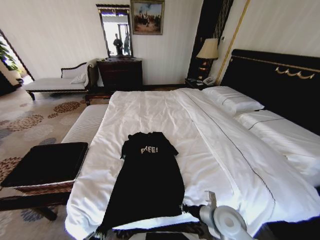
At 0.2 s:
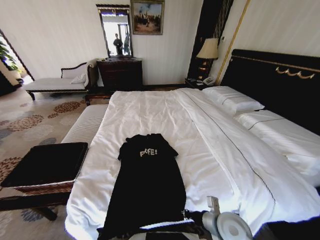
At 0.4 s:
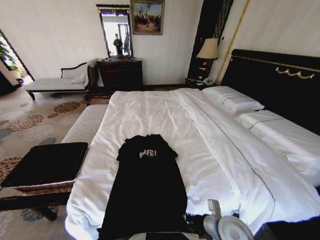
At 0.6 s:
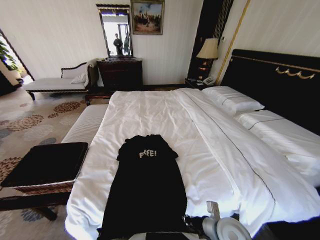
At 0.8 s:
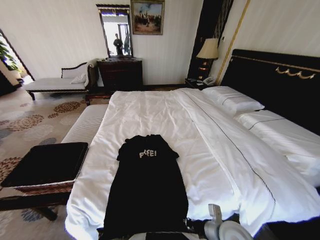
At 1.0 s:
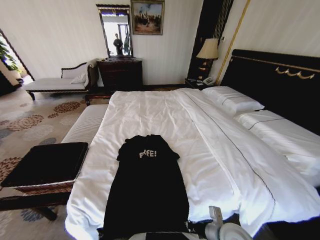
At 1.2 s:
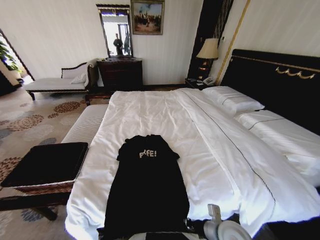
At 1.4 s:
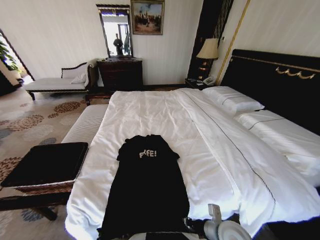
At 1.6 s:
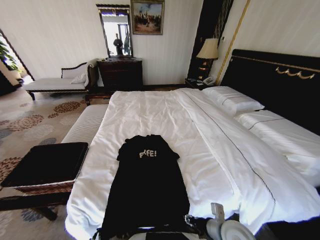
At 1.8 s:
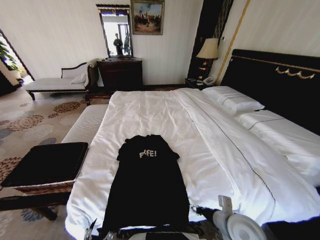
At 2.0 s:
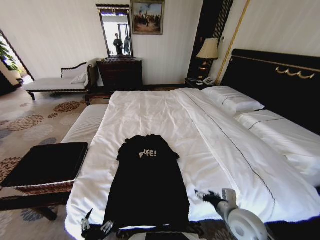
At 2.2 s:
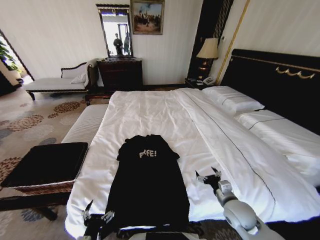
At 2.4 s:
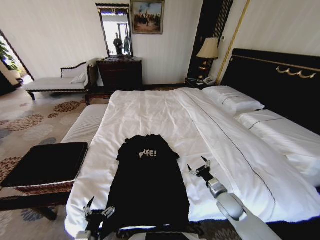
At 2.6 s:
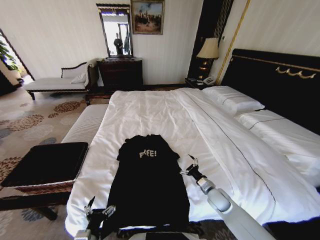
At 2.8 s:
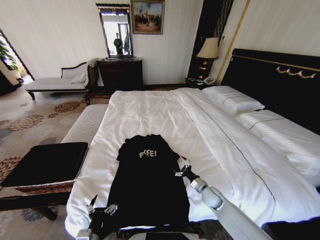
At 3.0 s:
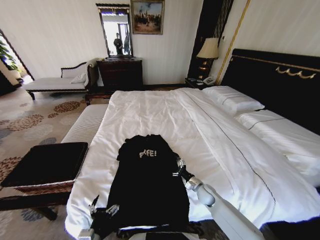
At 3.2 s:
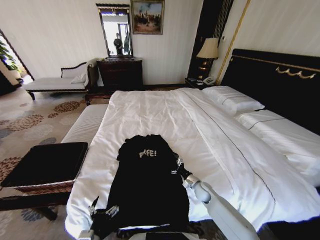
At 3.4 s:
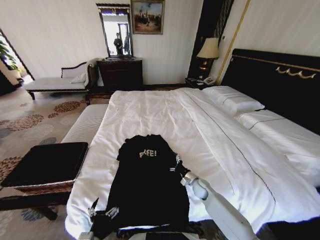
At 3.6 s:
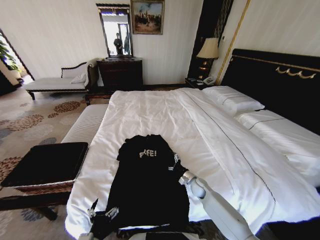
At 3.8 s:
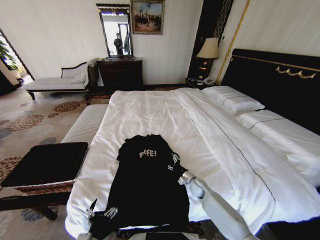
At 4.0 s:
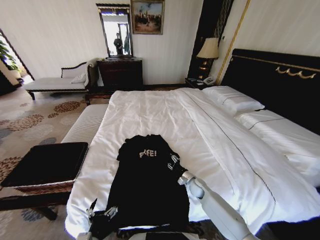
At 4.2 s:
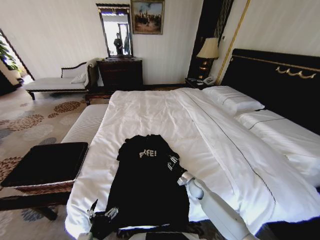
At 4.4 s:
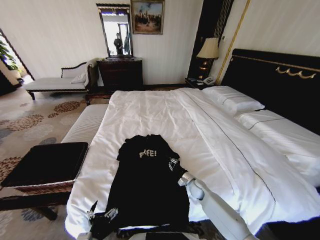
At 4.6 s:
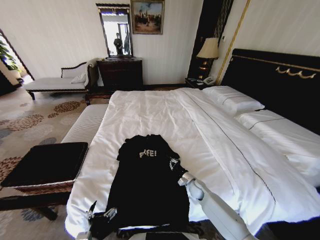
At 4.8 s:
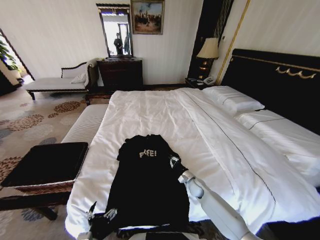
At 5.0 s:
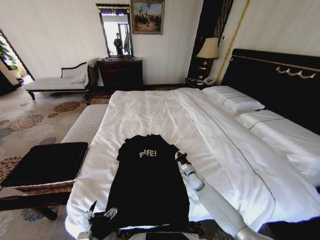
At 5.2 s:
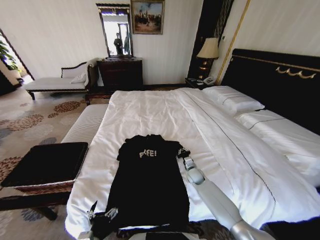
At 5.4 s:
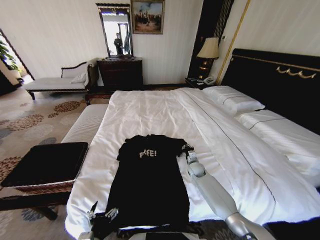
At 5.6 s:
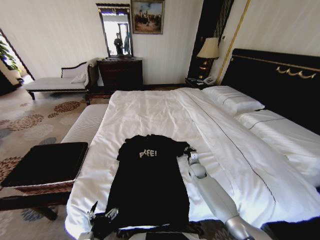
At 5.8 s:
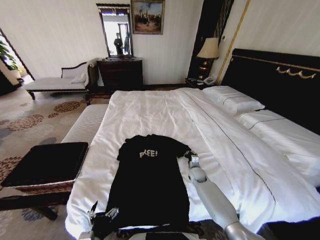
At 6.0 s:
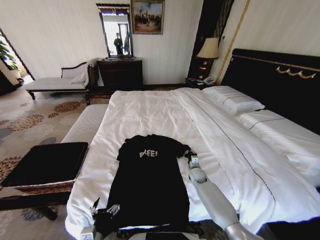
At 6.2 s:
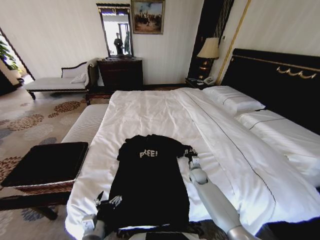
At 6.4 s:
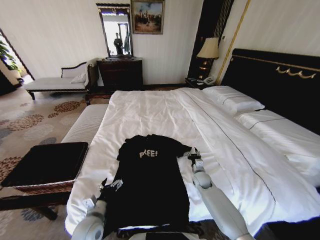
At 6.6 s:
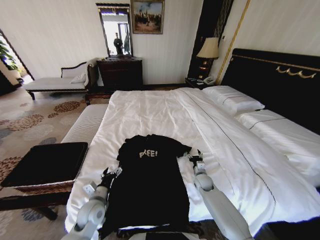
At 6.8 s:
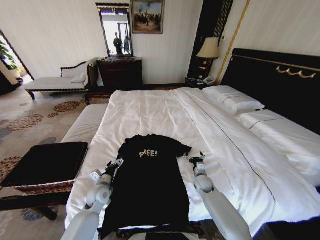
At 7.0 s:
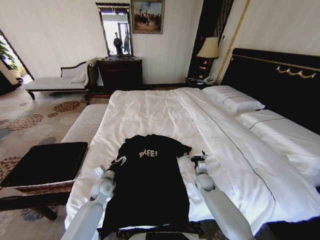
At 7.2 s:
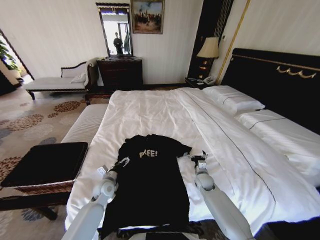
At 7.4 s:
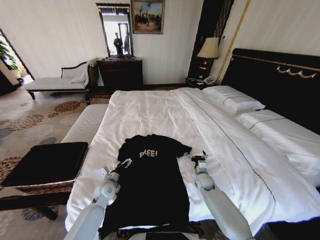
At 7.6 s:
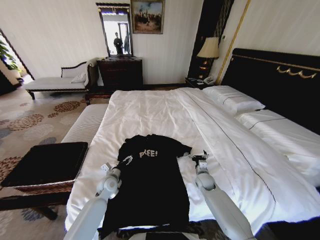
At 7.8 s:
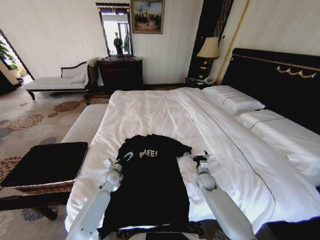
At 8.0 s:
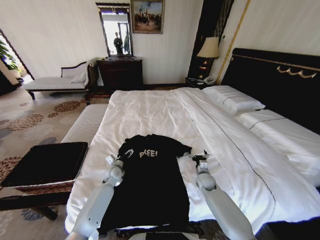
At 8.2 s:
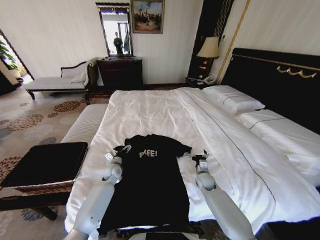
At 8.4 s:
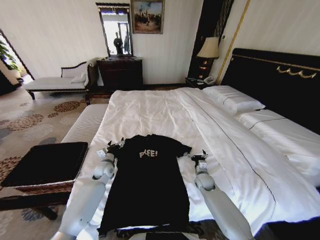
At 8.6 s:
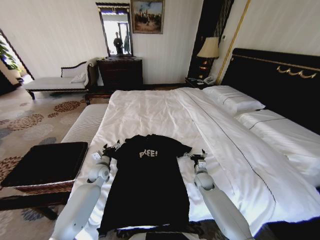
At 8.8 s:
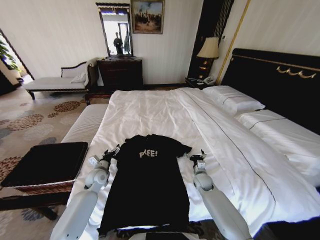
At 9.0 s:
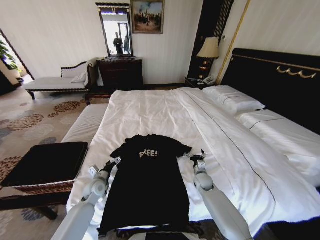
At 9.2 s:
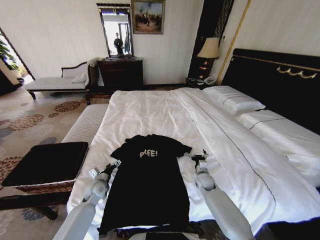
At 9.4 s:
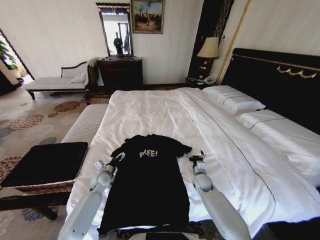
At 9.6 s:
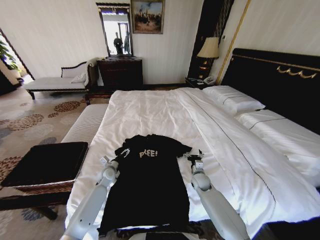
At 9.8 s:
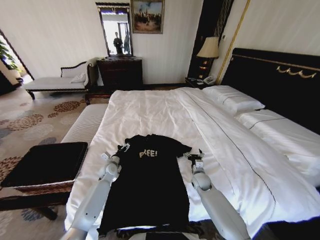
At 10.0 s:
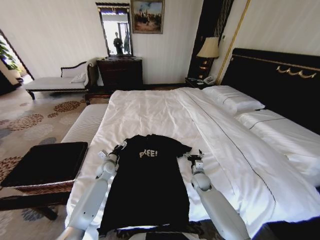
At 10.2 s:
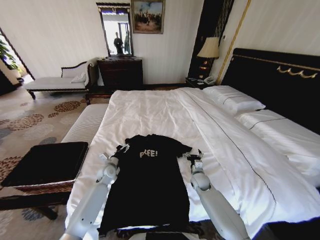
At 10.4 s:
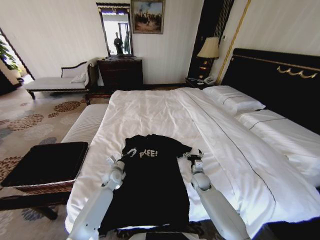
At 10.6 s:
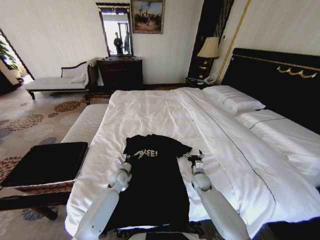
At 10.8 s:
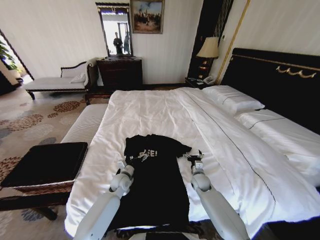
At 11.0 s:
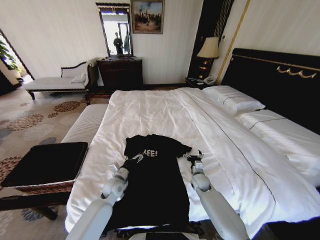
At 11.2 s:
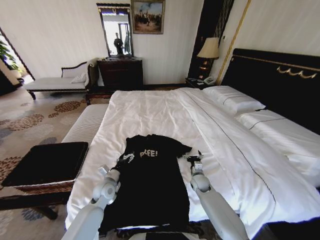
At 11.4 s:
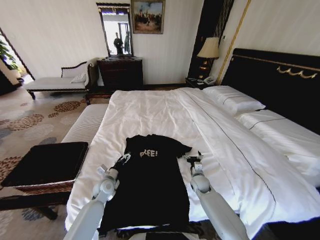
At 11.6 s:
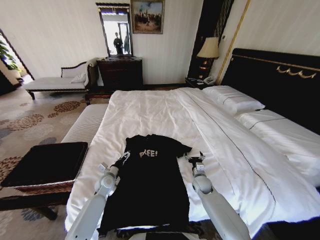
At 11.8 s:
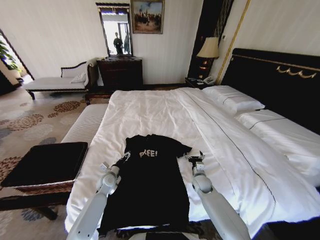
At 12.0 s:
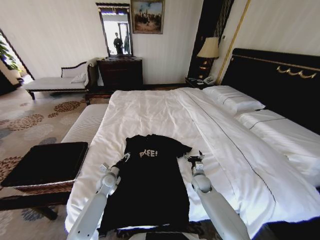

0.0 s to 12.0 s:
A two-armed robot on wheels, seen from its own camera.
Task of the whole recording: Fold the clothes on the bed and place them into the basket.
0.0 to 1.6 s: The left gripper opens up.
1.6 to 3.0 s: The right gripper moves forward and downward, about 25 cm, and opens its fingers. The left gripper goes about 10 cm forward, and opens up.
3.0 to 4.4 s: The right gripper closes up.
4.4 to 6.0 s: The right gripper shifts about 5 cm forward.
6.0 to 7.6 s: The right gripper opens. The left gripper goes approximately 25 cm forward.
7.6 to 9.0 s: The left gripper heads to the left, covering approximately 5 cm, and moves approximately 10 cm forward and comes back.
9.0 to 10.4 s: The left gripper goes some 10 cm to the right and forward.

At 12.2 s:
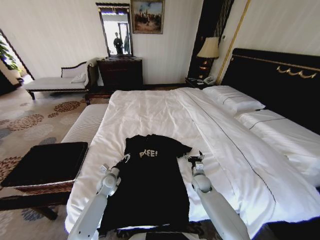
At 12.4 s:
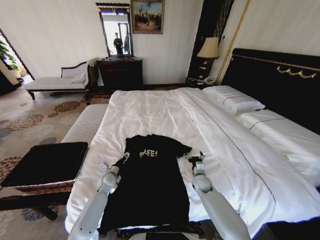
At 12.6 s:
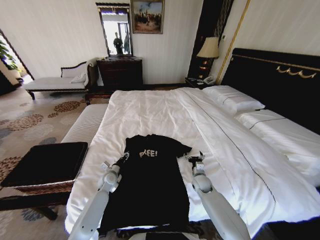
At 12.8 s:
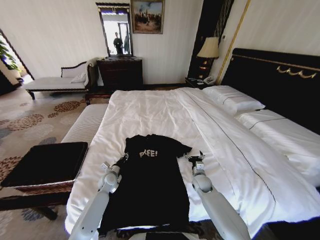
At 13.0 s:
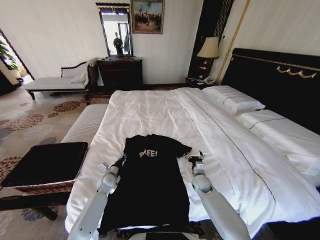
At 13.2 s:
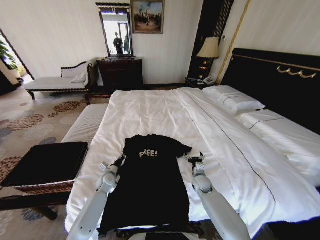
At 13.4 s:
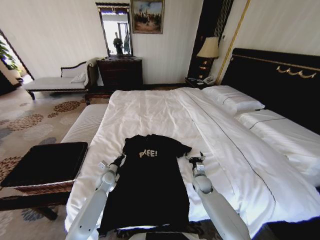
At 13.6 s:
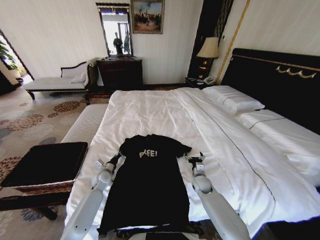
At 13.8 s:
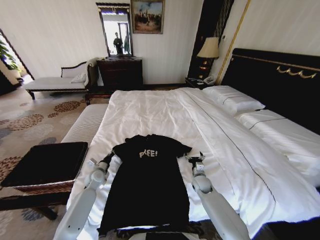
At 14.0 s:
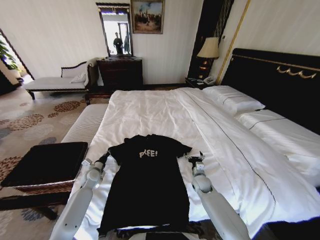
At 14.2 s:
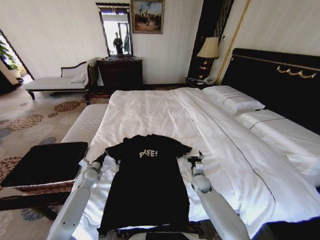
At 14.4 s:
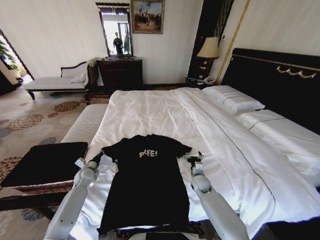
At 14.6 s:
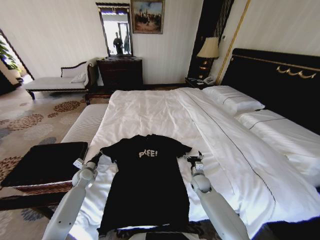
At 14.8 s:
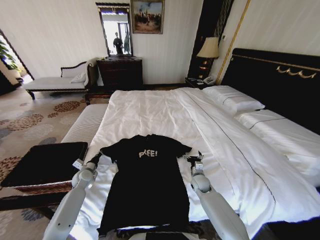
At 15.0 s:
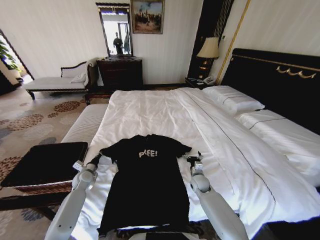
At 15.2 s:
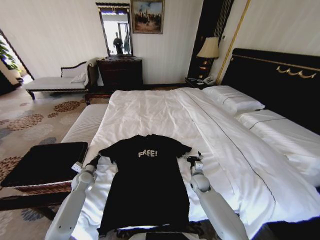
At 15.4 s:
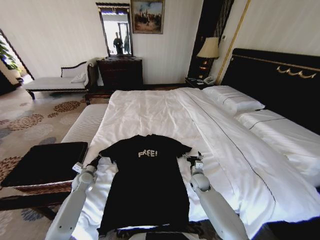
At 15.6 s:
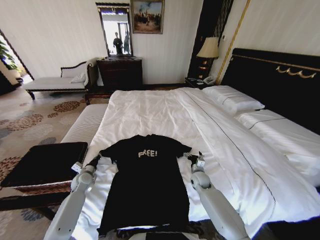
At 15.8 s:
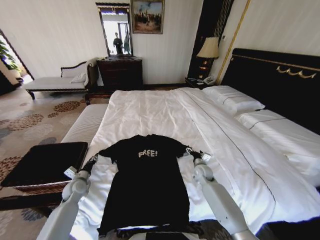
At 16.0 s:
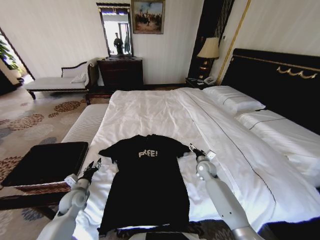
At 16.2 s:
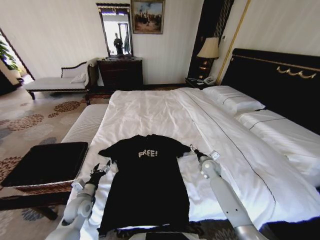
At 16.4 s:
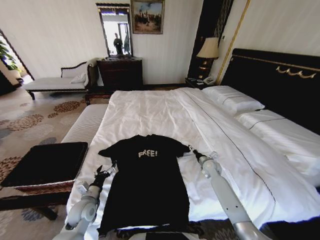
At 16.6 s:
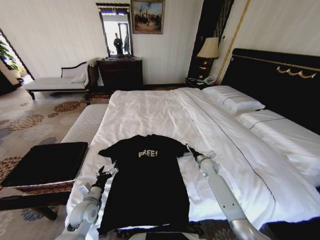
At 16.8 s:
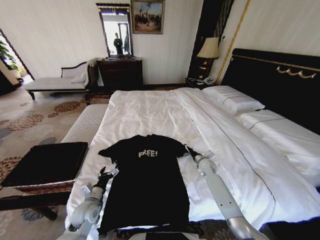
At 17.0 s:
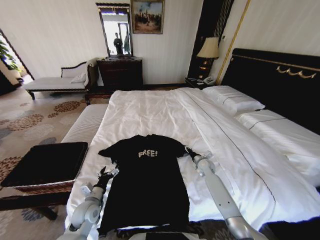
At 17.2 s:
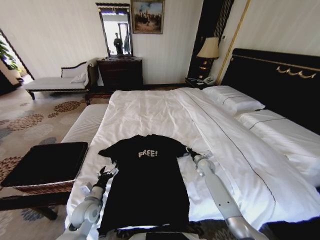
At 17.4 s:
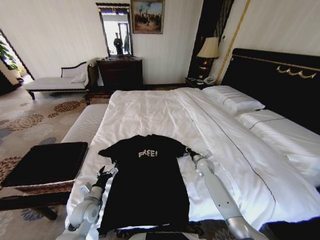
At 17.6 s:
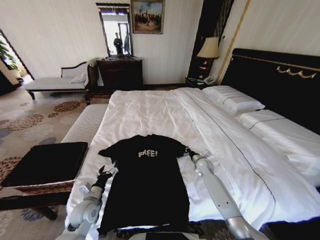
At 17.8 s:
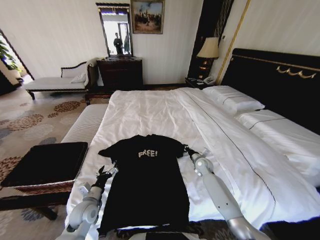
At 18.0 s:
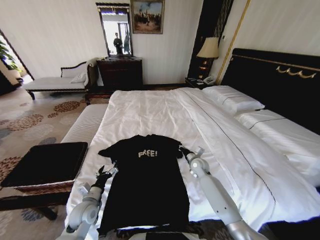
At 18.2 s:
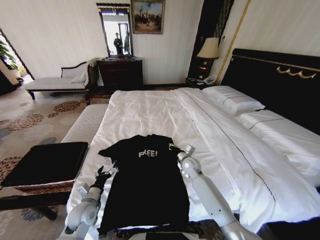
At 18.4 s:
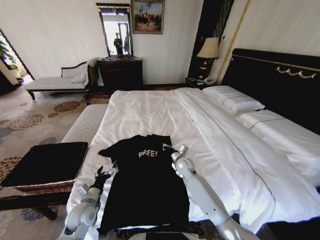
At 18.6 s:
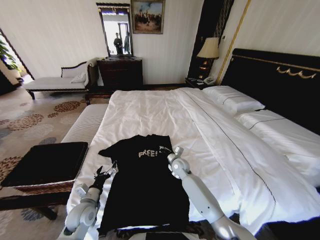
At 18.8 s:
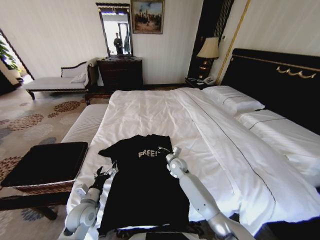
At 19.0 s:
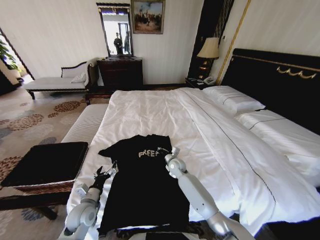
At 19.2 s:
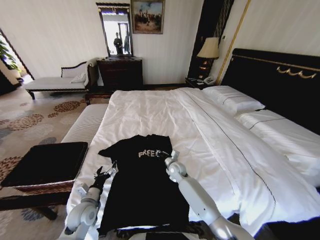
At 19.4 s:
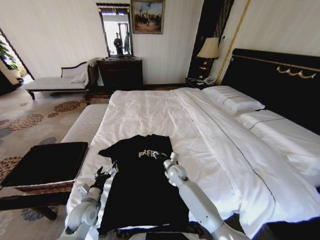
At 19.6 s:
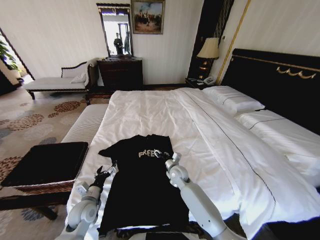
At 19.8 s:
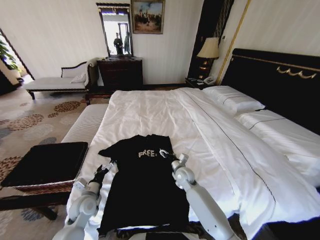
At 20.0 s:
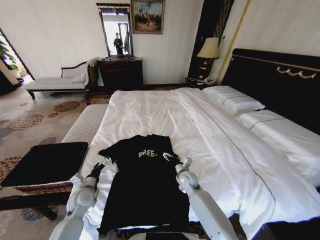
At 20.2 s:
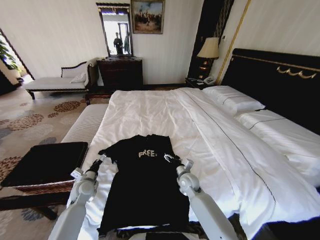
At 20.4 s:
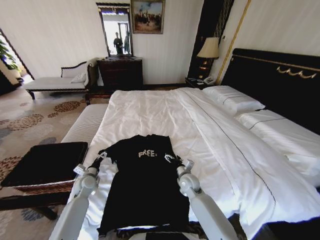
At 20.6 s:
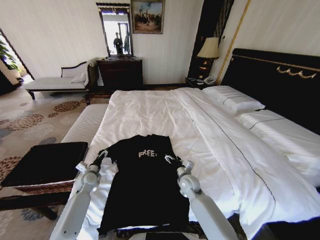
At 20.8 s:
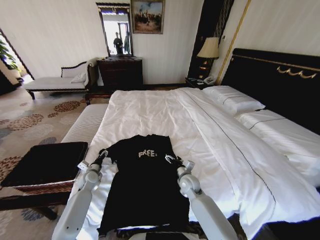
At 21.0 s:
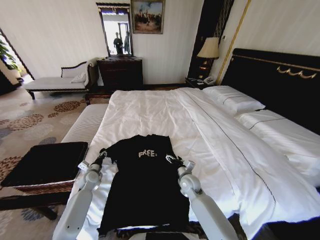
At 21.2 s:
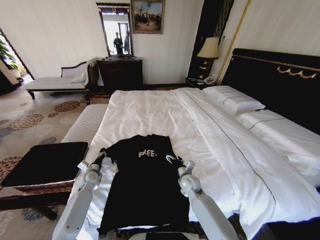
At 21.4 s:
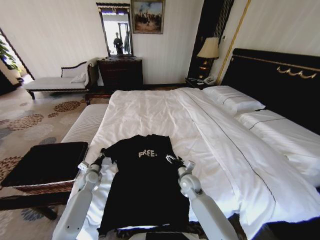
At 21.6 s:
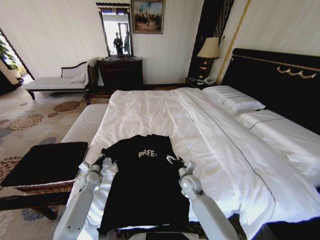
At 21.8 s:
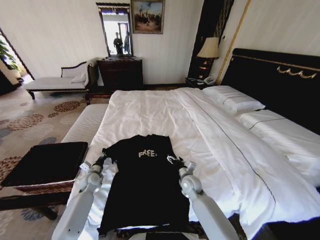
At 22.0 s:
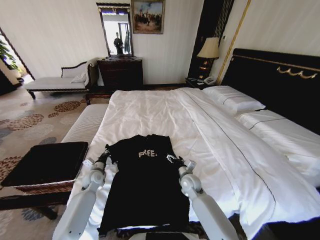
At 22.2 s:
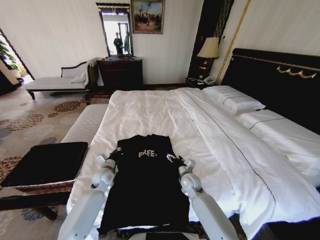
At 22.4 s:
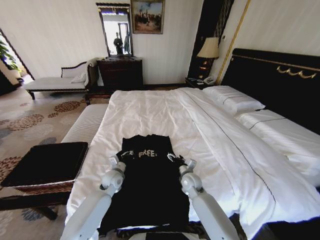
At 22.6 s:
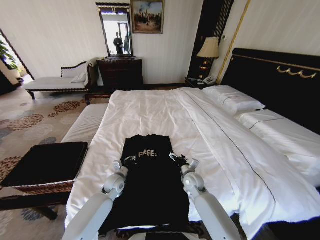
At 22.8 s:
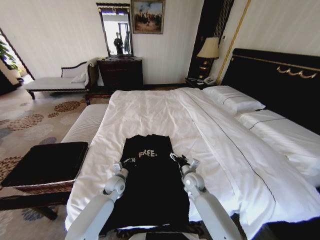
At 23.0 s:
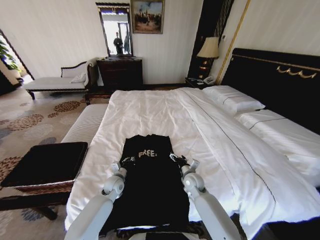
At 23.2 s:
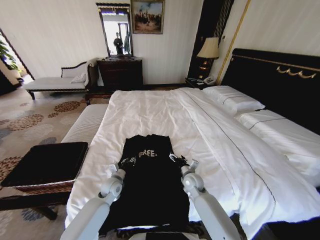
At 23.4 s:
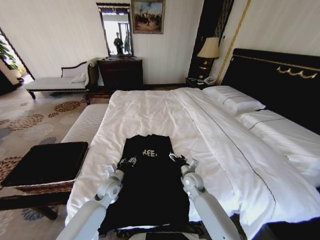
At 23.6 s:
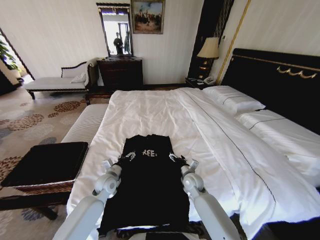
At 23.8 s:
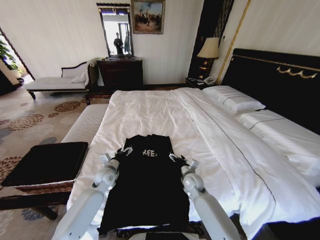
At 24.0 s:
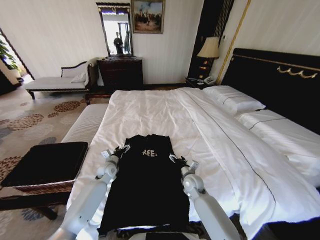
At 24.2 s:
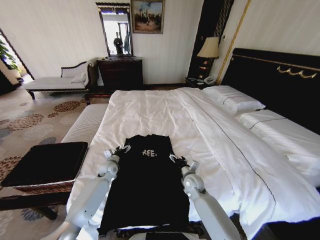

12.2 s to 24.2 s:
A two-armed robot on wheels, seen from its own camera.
Task of the whole recording: Fold the clothes on the bed and place them into the basket.
12.2 to 13.8 s: The left gripper travels to the left by approximately 5 cm, and closes its fingers.
13.8 to 15.2 s: The left gripper heads to the left, covering some 5 cm.
15.2 to 16.6 s: The right gripper is displaced forward and to the right by some 10 cm. Meanwhile the left gripper heads backward and to the right, covering some 20 cm, and opens up.
16.6 to 18.2 s: The right gripper goes about 10 cm to the left, and closes its fingers.
18.2 to 19.8 s: The right gripper moves to the left, roughly 5 cm, and opens its fingers.
19.8 to 21.2 s: The left gripper goes roughly 15 cm forward and to the left, and closes up.
21.2 to 22.6 s: The left gripper travels to the right by some 15 cm.
22.6 to 24.2 s: The left gripper moves forward and to the left, approximately 10 cm, and opens.
